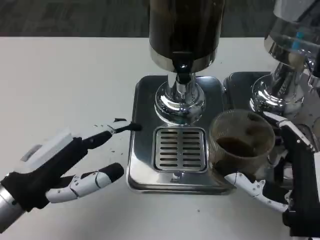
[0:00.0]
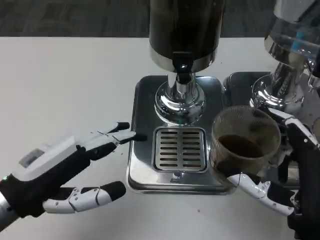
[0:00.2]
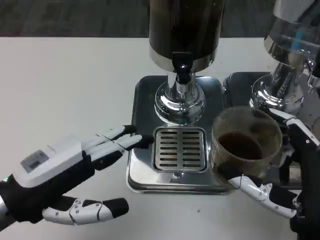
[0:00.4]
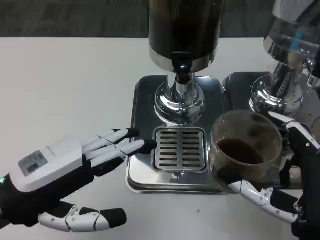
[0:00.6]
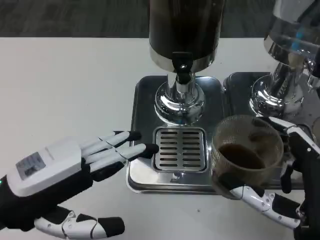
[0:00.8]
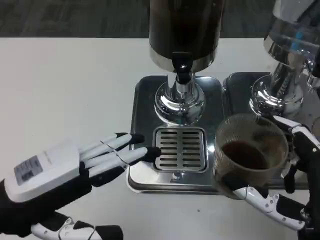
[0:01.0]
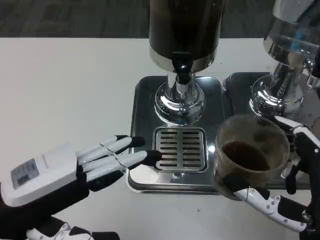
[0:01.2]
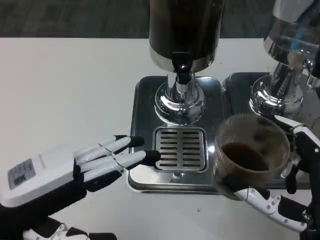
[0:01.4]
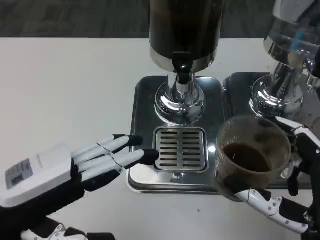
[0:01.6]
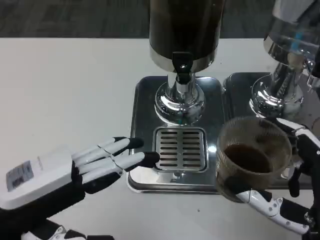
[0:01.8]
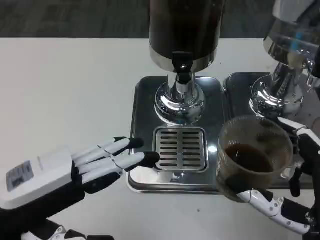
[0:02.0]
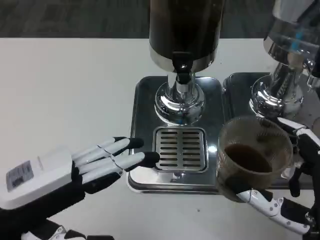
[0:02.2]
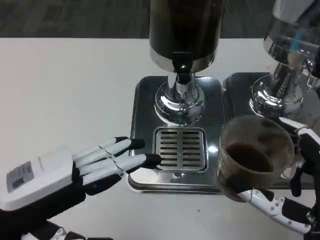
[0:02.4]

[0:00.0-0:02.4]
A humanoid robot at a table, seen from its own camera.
Task of the whole recording: Grasp the cup under the faucet to collect the drink, then remove the cup.
0:01.2 to 0:02.4: The two hands keep their place.

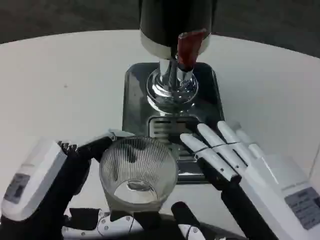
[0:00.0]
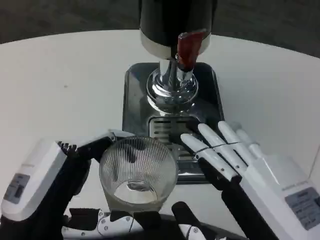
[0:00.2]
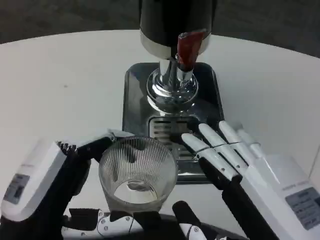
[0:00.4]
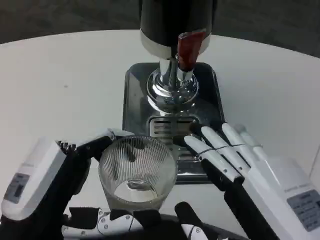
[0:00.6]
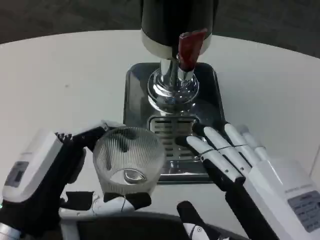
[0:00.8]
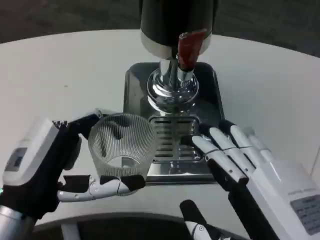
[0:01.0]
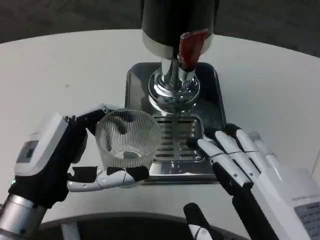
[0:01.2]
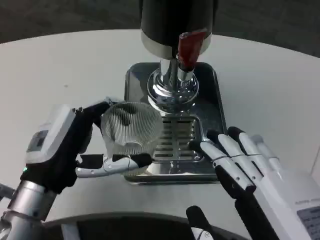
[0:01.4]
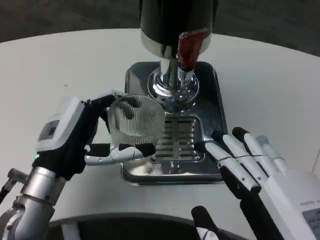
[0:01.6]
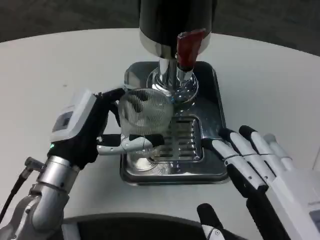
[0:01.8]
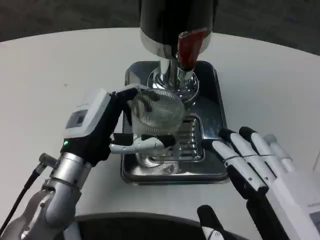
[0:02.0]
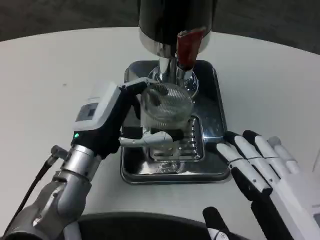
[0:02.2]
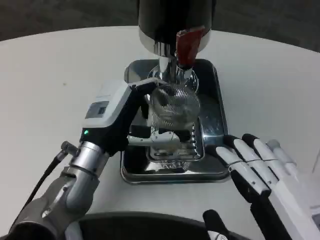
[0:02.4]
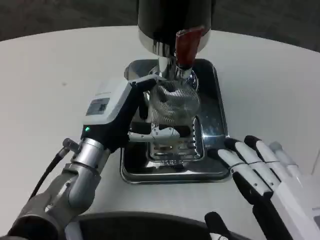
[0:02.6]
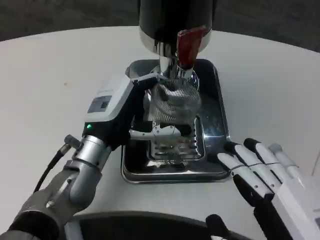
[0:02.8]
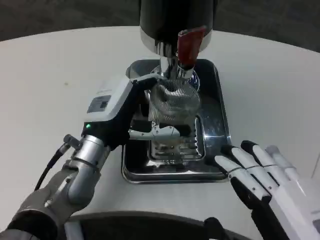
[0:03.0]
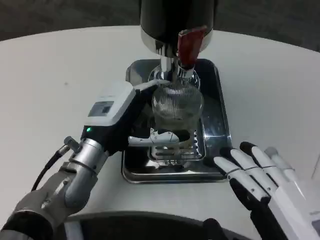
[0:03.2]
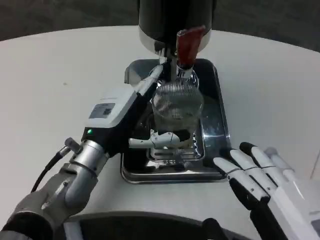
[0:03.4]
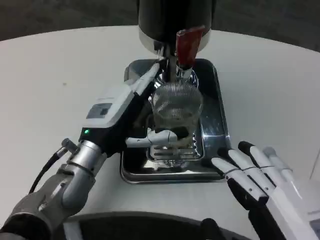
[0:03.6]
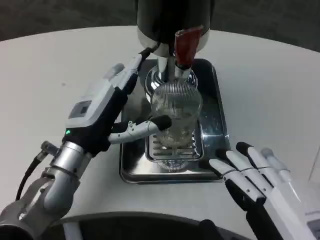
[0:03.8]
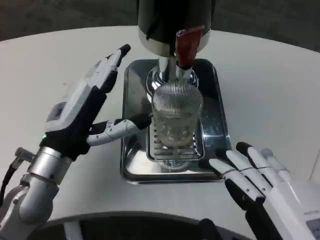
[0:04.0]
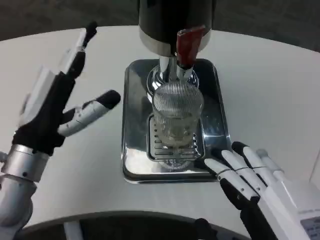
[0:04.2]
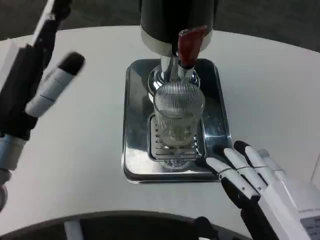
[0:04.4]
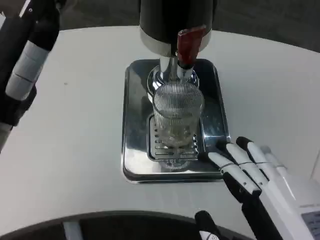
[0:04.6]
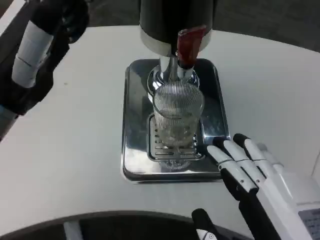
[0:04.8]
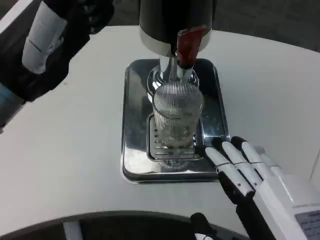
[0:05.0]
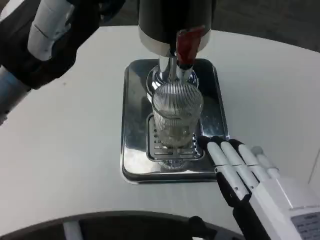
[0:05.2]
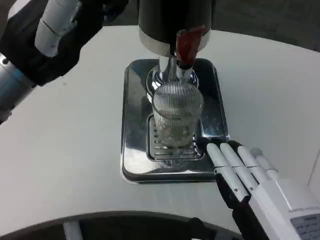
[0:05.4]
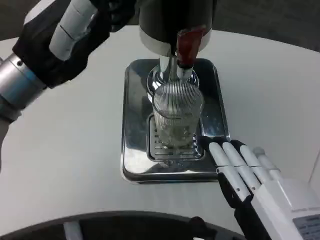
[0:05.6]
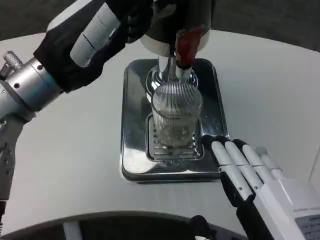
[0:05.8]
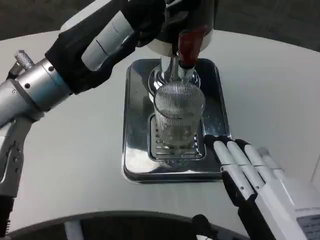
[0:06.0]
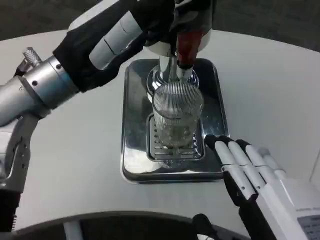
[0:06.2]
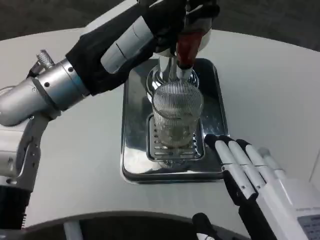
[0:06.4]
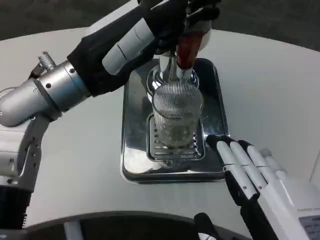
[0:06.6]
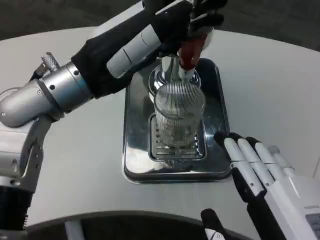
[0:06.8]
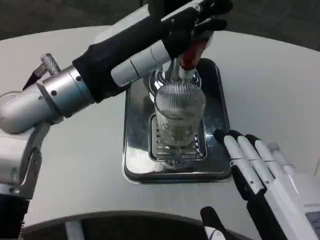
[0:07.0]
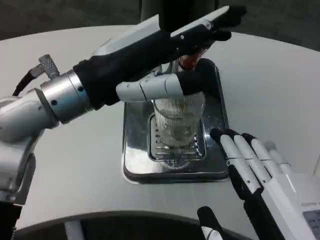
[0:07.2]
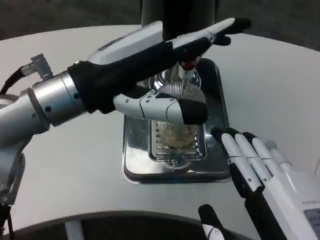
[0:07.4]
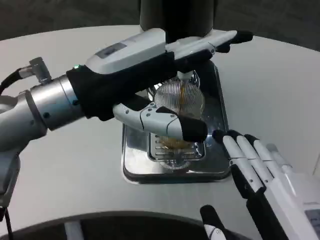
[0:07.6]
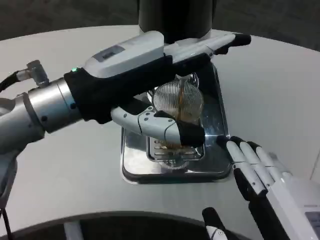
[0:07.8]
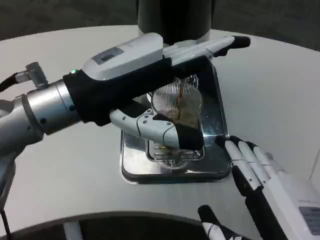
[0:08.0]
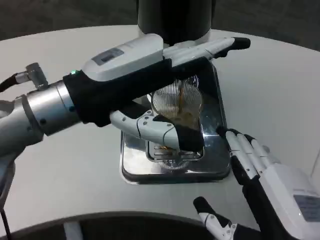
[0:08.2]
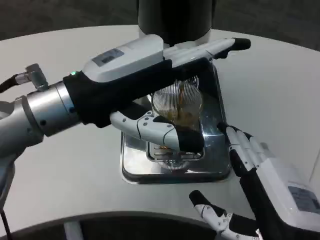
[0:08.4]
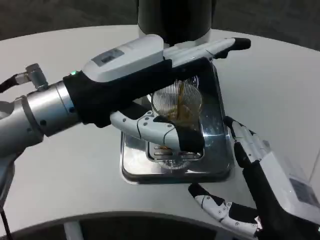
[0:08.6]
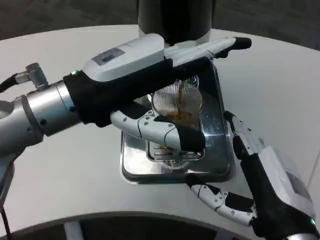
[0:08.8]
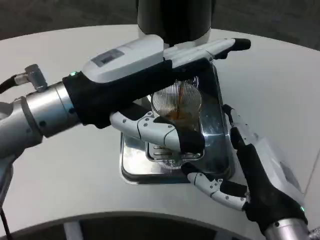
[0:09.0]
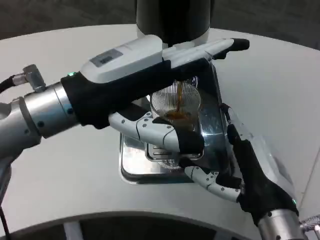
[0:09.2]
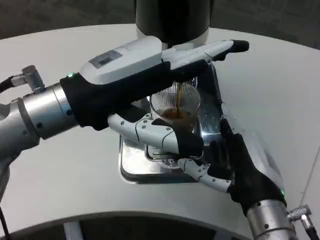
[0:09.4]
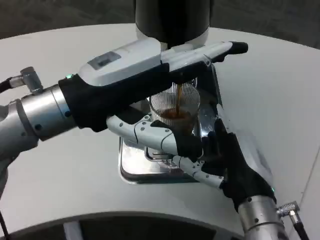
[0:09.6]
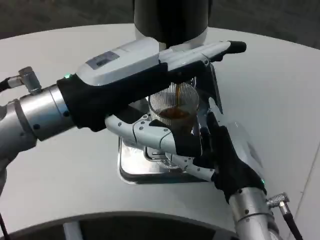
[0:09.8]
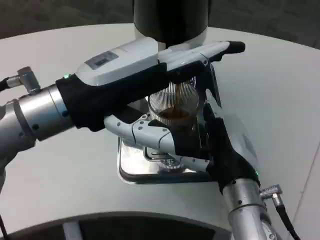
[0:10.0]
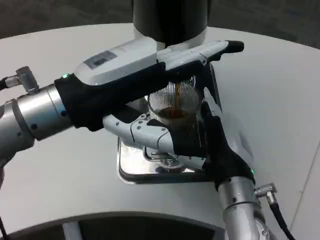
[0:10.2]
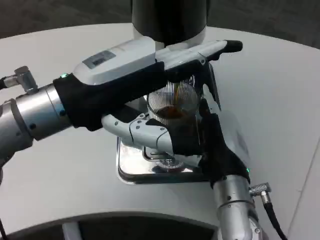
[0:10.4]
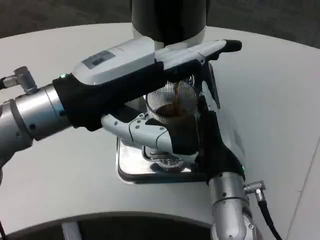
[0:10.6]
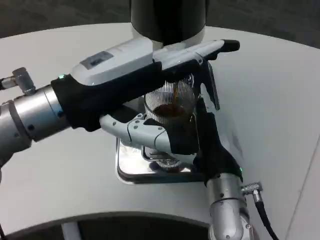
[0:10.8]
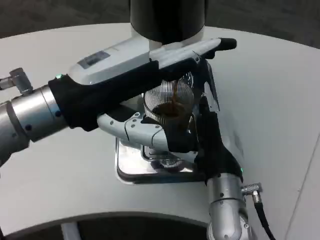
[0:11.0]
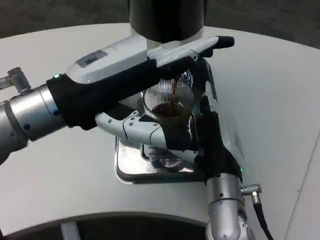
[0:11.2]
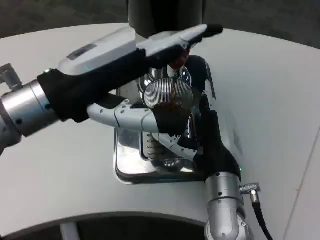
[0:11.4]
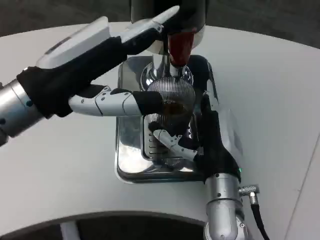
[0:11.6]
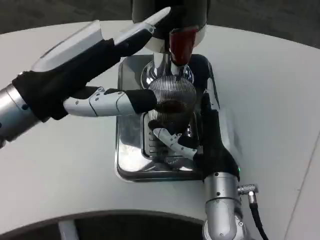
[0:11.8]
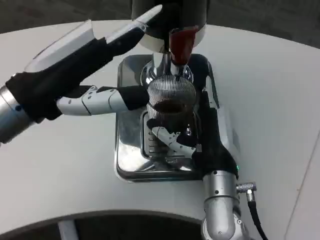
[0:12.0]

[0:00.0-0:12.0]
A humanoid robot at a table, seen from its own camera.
Task of the whole recording: Grasp the cup under the faucet to collect the drink, then remove the cup.
0:00.0 to 0:01.6: The left hand heads forward, covering about 10 cm.
0:01.6 to 0:03.0: The left hand travels forward by roughly 5 cm.
0:03.0 to 0:04.4: The left hand travels to the left, backward and upward by about 15 cm.
0:04.4 to 0:06.0: The left hand shifts roughly 10 cm upward.
0:07.6 to 0:09.0: The right hand travels forward by some 10 cm.
0:09.0 to 0:10.4: The right hand moves forward and to the left, roughly 10 cm.

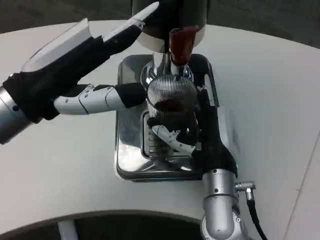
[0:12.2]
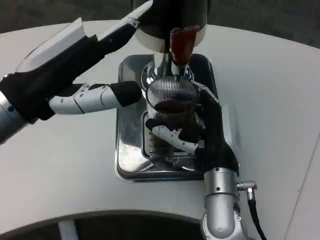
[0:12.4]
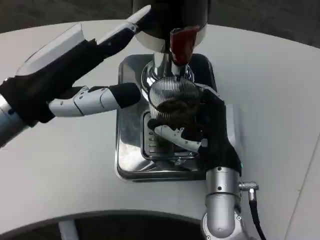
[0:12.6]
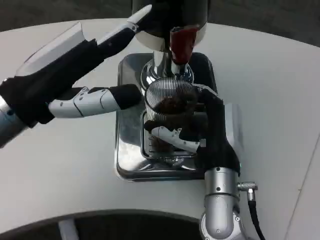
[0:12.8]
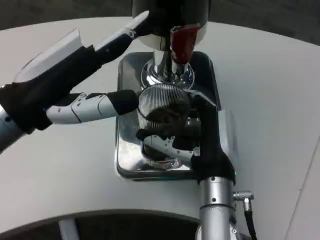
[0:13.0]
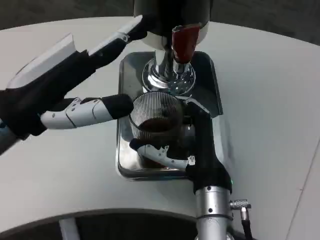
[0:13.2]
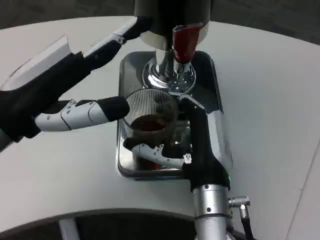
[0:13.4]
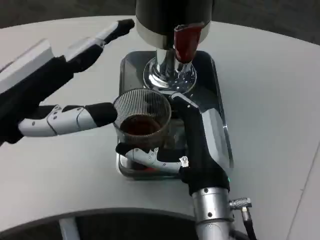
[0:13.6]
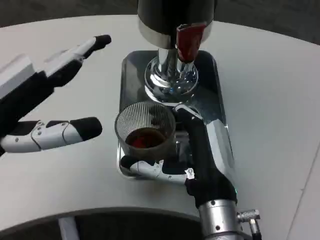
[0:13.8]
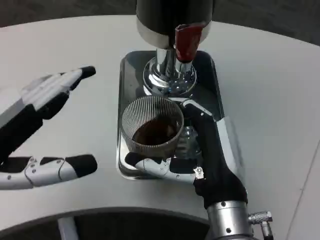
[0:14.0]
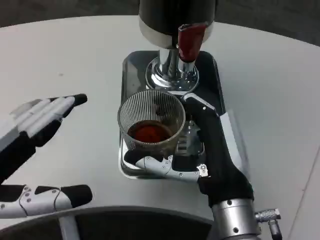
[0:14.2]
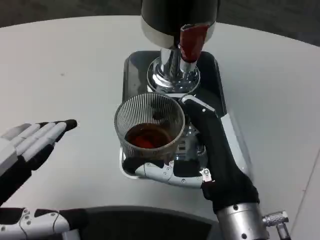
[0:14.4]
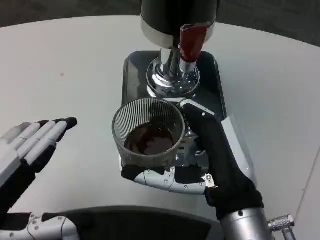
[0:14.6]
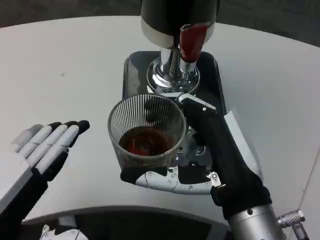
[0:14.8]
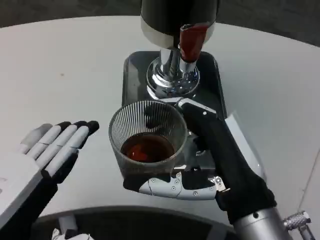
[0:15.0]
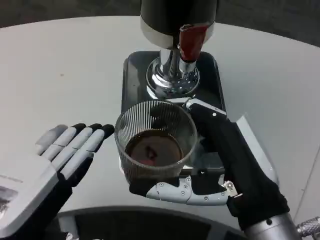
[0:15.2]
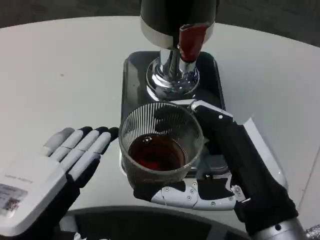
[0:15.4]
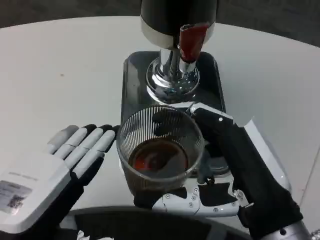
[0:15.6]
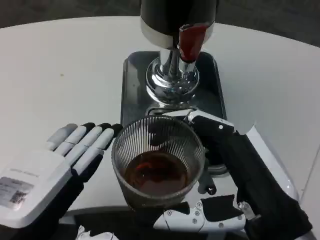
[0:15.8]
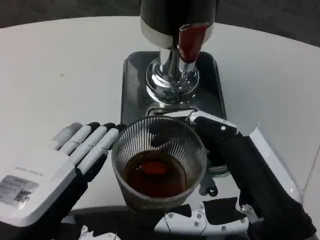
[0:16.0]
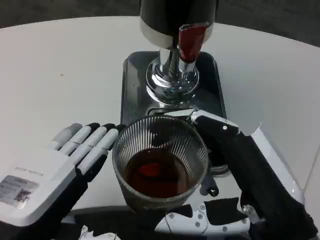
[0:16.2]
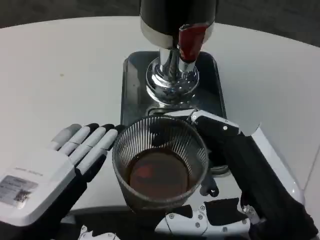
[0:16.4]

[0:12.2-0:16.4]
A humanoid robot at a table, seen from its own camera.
Task of the whole recording: Grasp the cup under the faucet to collect the drink, then remove the cup.
0:12.2 to 0:13.6: The left hand ends up approximately 5 cm from where it was.
0:13.6 to 0:15.0: The left hand heads backward and downward, covering about 15 cm. The right hand shifts some 10 cm backward and to the right.
0:15.0 to 0:16.4: The right hand shifts by roughly 5 cm.

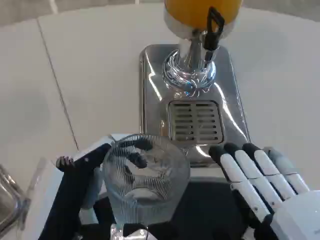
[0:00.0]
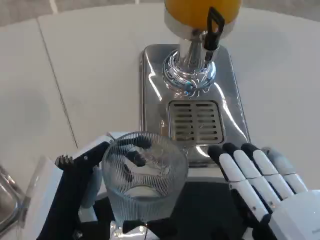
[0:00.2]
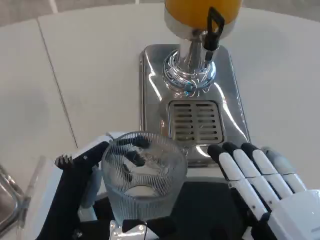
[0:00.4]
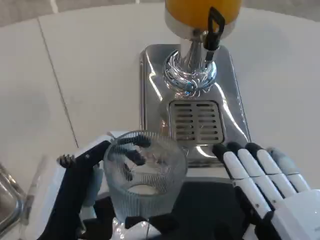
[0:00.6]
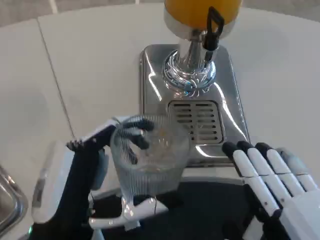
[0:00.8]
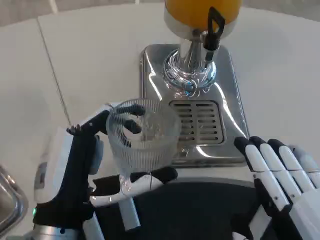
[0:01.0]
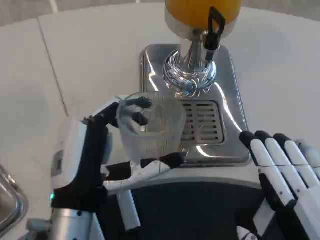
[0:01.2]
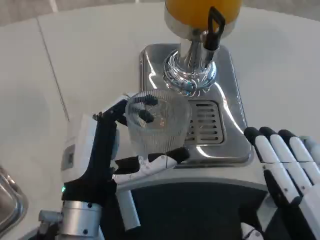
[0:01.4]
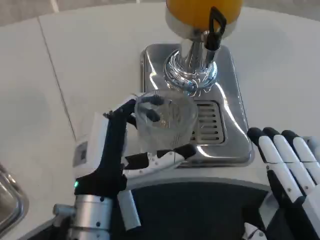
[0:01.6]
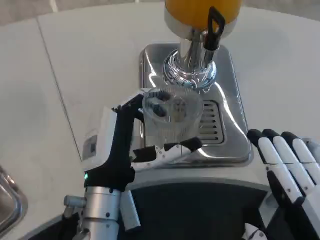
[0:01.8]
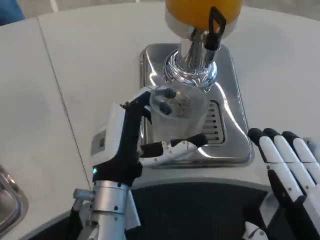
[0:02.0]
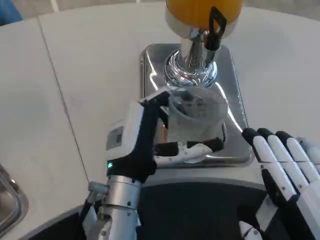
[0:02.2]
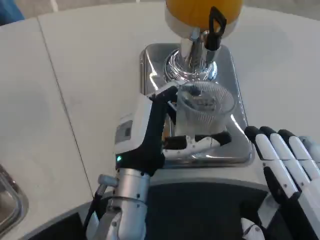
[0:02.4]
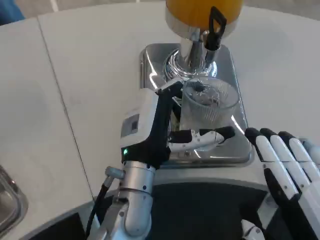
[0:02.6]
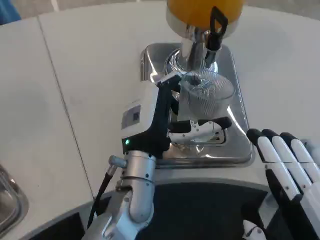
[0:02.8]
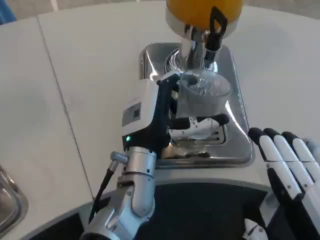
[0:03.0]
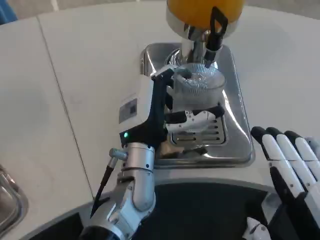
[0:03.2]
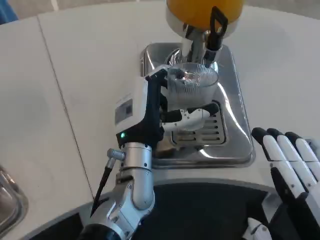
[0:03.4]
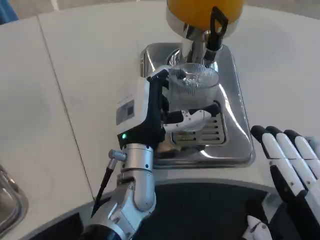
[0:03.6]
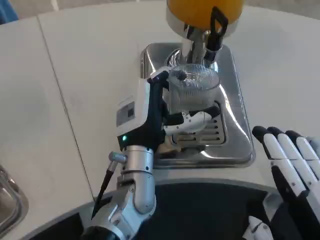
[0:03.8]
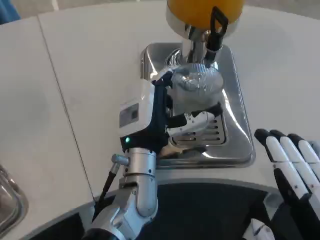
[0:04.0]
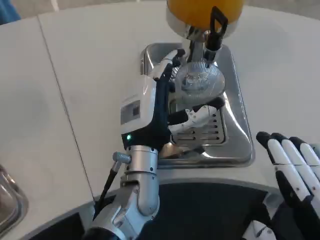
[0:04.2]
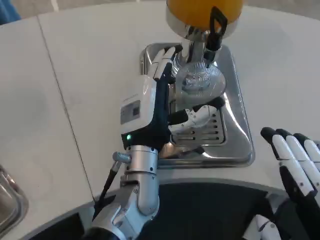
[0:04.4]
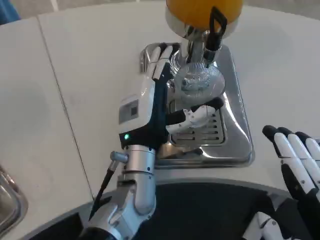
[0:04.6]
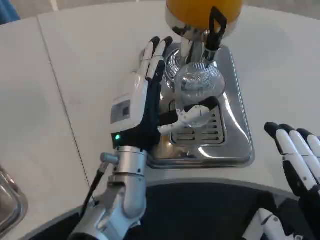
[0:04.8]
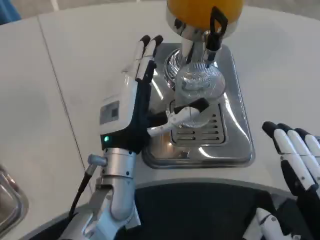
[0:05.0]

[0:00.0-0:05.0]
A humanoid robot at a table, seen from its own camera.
Task of the whole recording: Grasp the cup under the faucet to collect the drink, then remove the cup.
0:00.0 to 0:01.6: The left hand moves forward and to the right, approximately 10 cm.
0:01.6 to 0:03.4: The left hand travels forward and to the right by approximately 10 cm.
0:03.4 to 0:05.0: There are only small adjustments of the hands.
